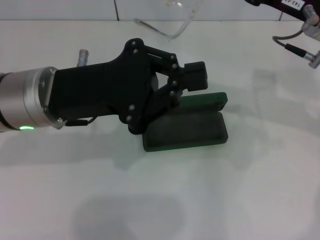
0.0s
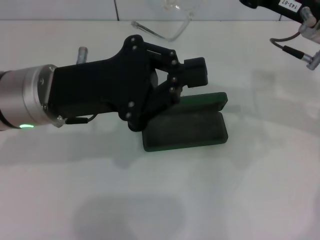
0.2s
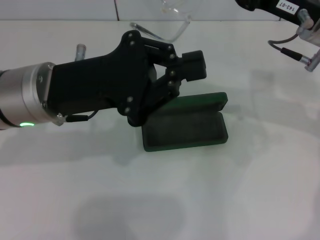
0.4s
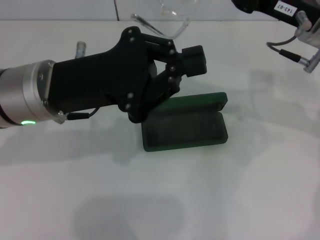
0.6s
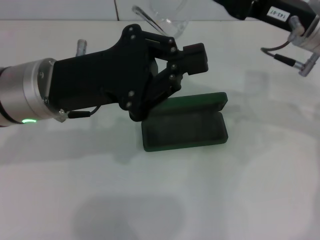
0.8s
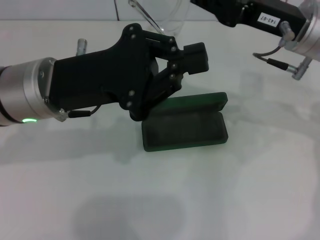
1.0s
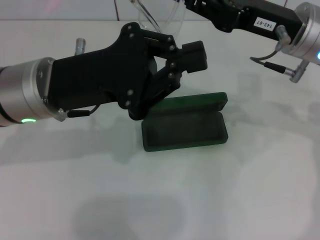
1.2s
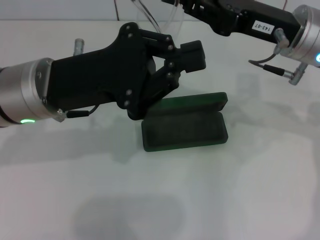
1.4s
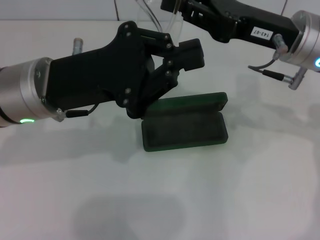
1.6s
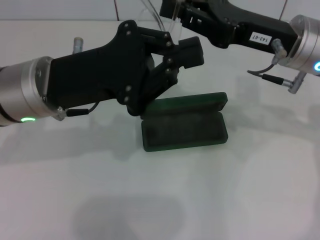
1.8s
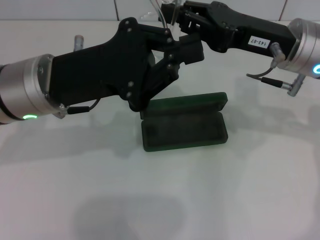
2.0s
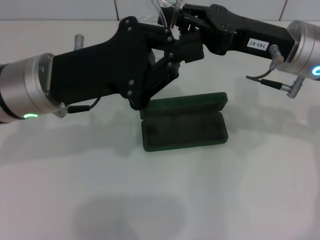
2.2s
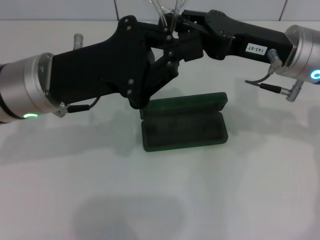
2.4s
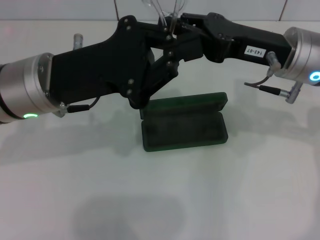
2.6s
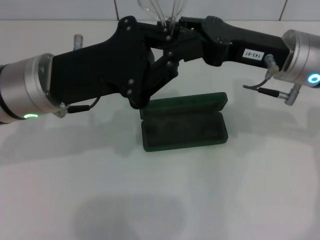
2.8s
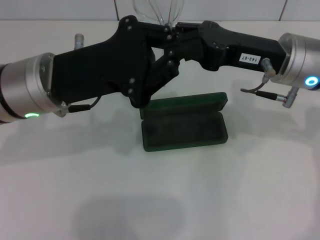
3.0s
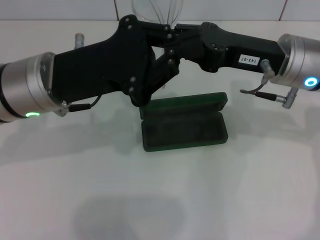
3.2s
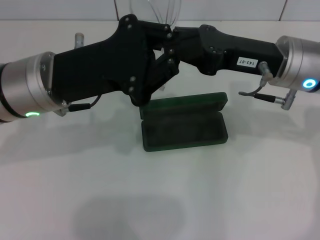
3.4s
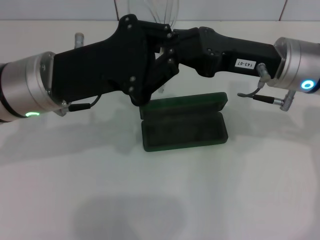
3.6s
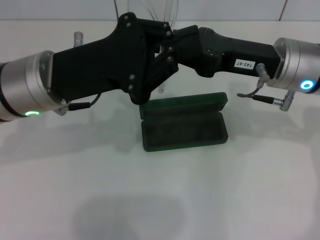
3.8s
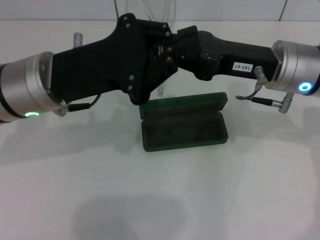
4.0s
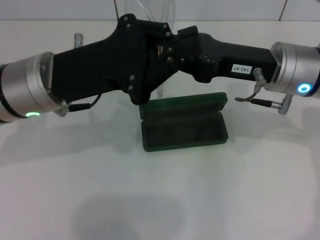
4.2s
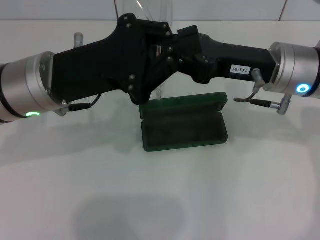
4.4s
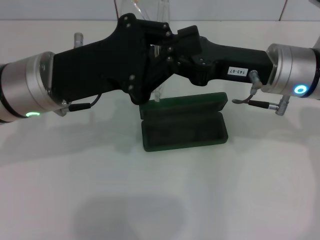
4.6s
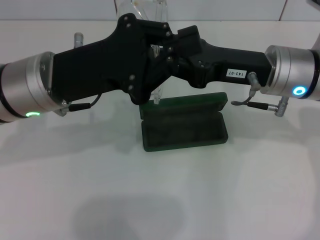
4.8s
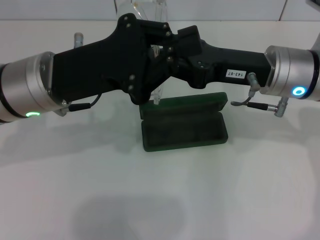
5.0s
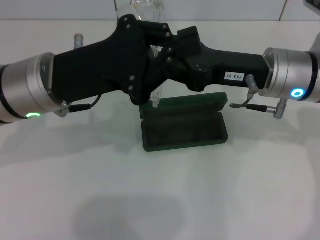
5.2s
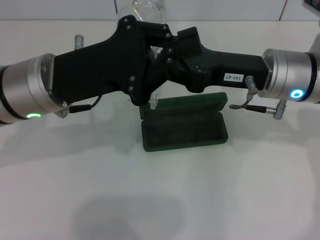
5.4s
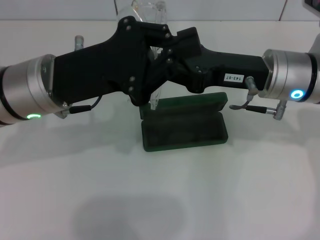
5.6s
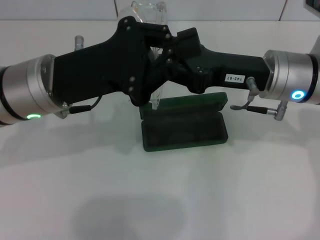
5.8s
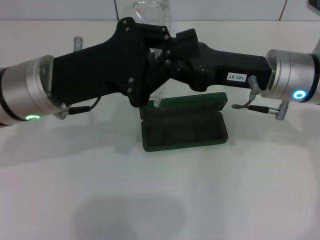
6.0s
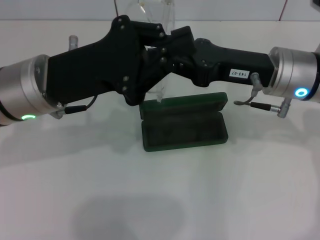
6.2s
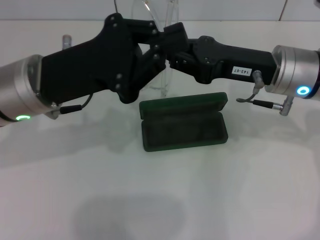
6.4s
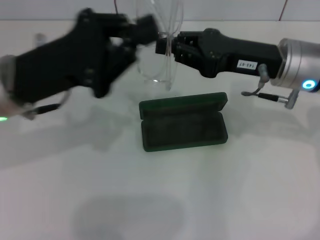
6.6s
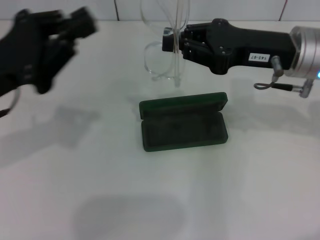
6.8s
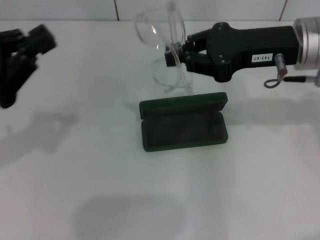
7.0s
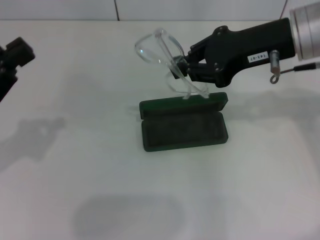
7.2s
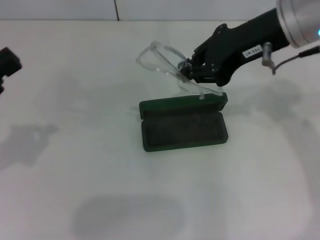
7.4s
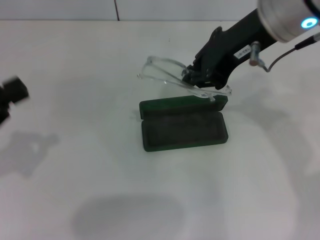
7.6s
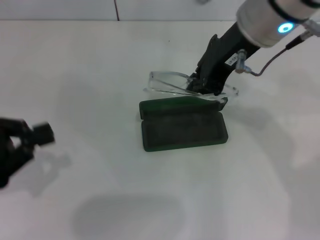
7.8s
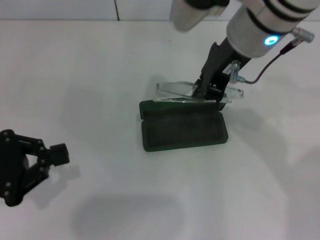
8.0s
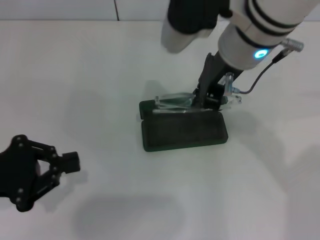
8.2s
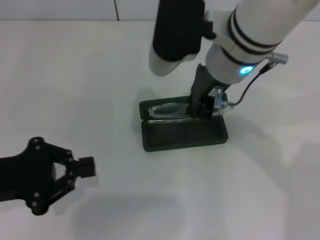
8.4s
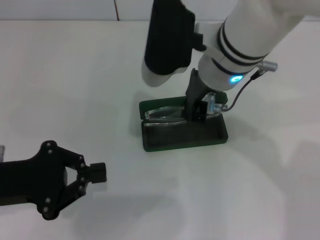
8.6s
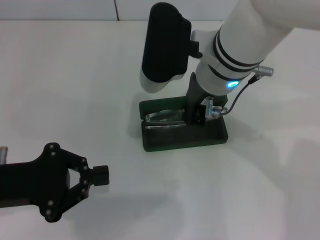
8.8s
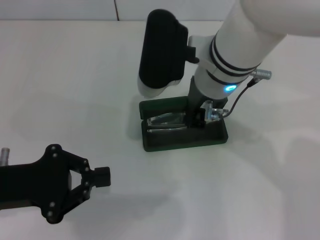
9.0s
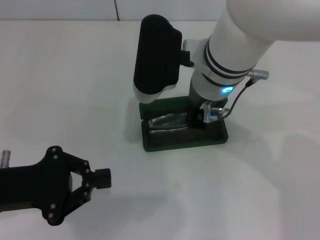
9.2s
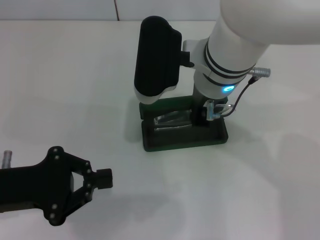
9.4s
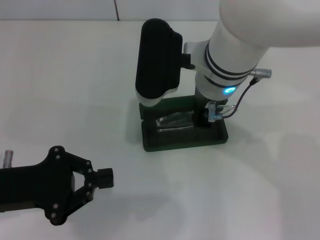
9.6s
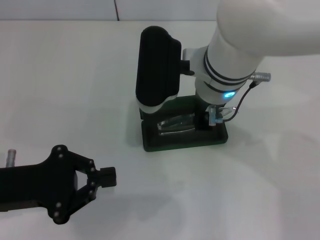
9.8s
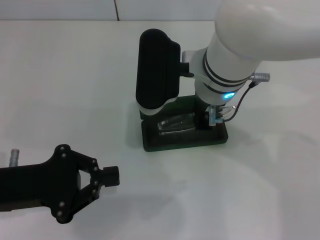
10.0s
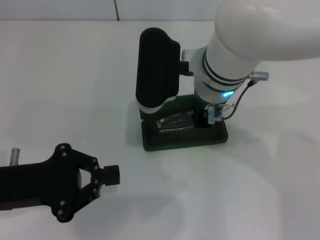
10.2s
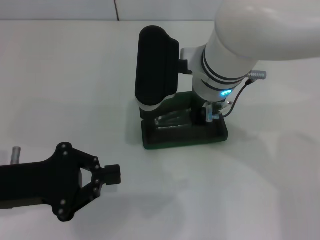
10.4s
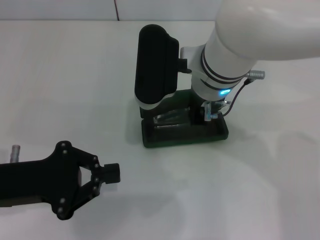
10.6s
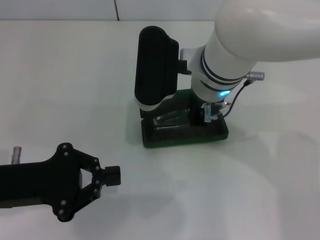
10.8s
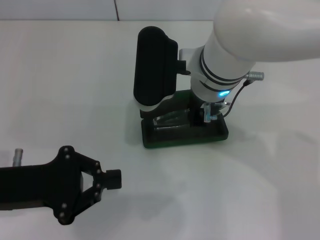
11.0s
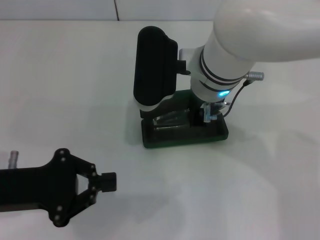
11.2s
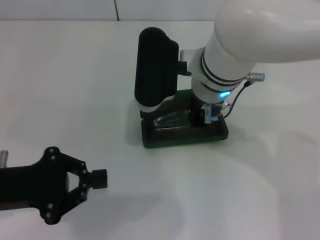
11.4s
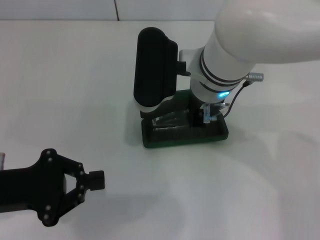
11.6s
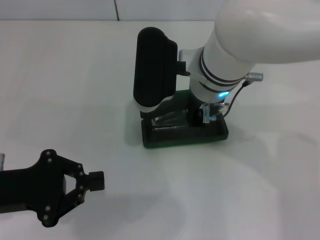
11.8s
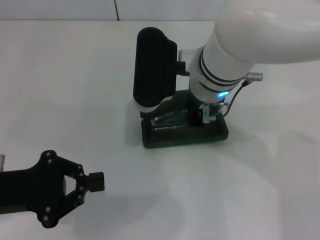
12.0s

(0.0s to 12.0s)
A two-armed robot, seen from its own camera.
Step, 0.0s - 4.0s: Fold the frame with your left hand.
1.6s - 3.0s: The grippers move only a little.
3.0s - 4.4s: The two grippers keep their place.
4.4s - 6.0s: Neither gripper changes place.
6.0s - 7.6s: The left gripper heads to the left and backward, covering about 20 cm, while the right gripper is displaced upward by approximately 10 cm.
7.6s - 9.0s: The right gripper shifts approximately 10 cm to the left and downward; the left gripper travels to the right by approximately 5 cm.
9.0s - 12.0s: There are only small adjustments of the grippers.

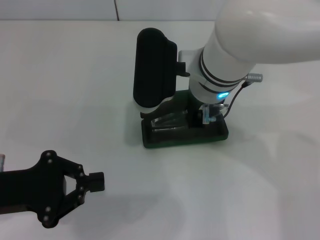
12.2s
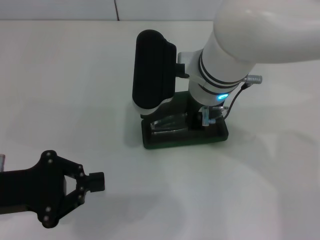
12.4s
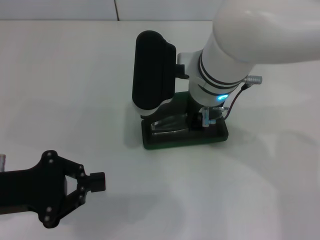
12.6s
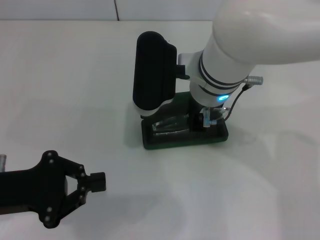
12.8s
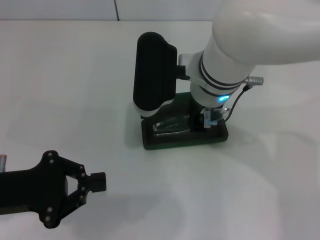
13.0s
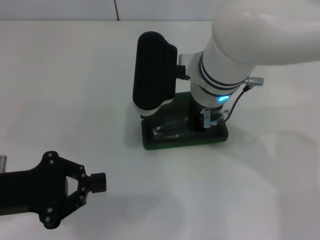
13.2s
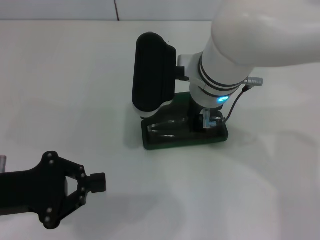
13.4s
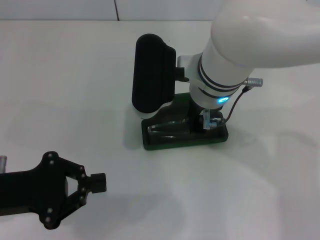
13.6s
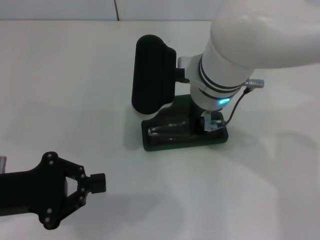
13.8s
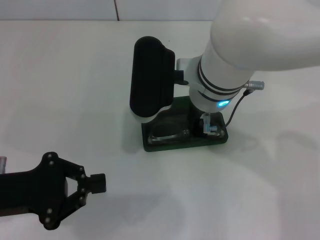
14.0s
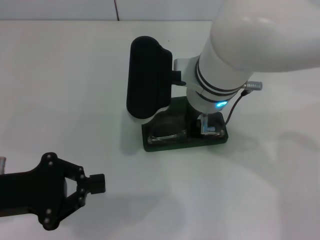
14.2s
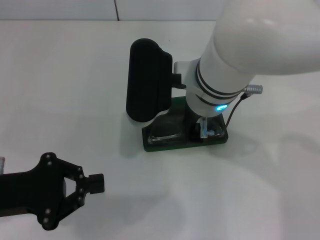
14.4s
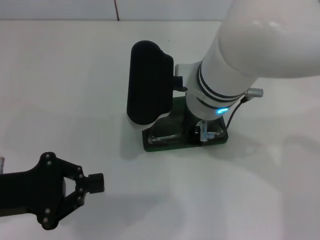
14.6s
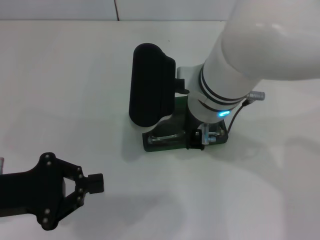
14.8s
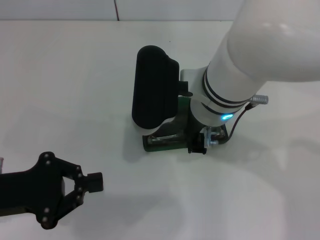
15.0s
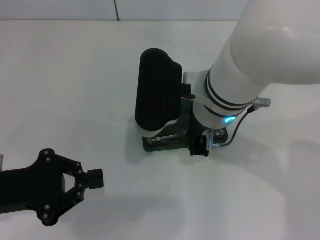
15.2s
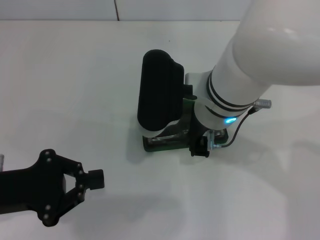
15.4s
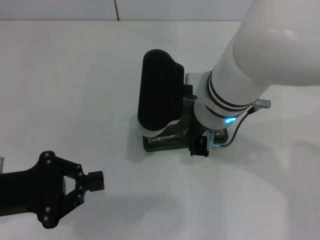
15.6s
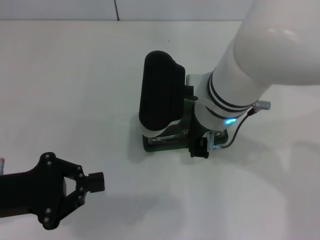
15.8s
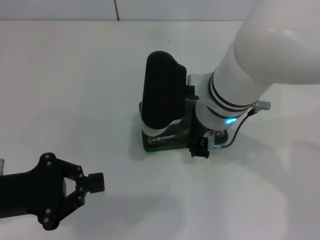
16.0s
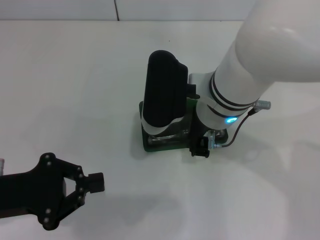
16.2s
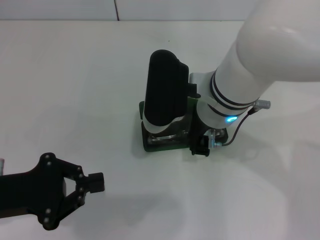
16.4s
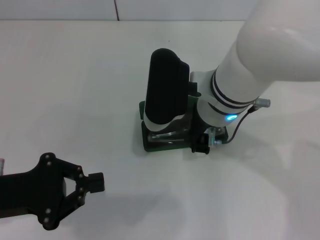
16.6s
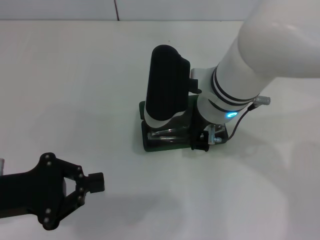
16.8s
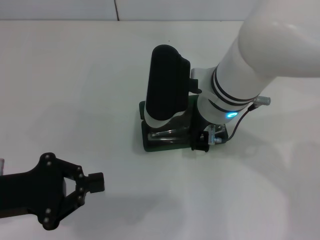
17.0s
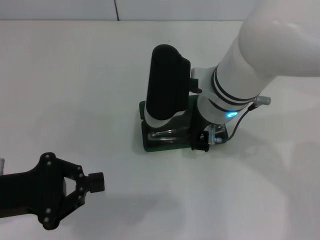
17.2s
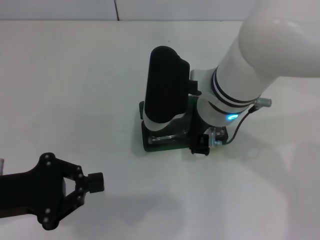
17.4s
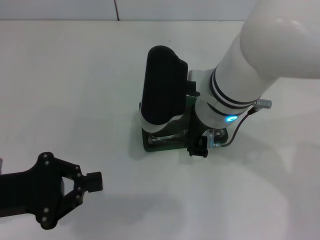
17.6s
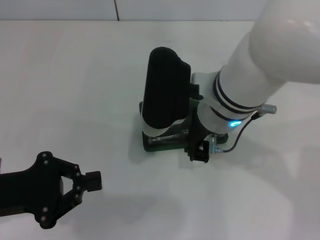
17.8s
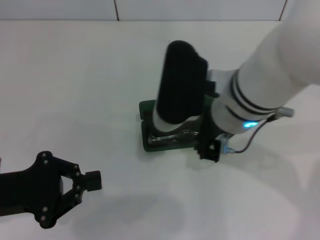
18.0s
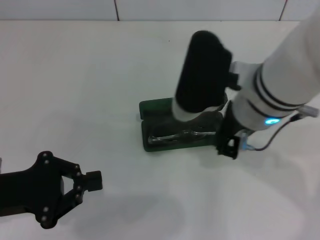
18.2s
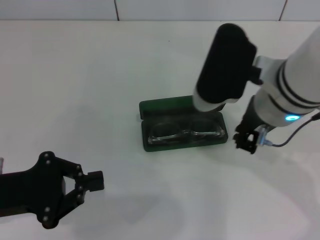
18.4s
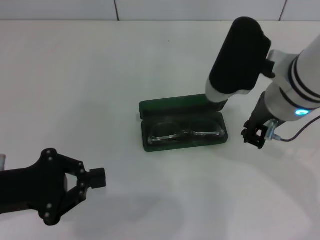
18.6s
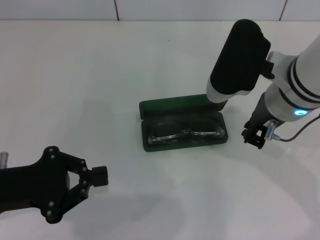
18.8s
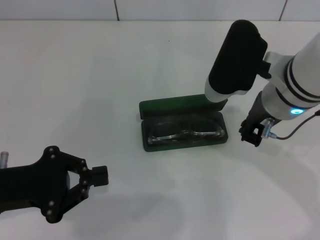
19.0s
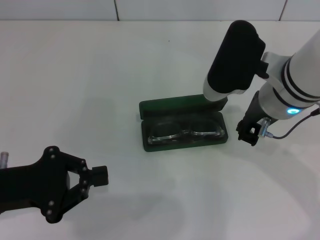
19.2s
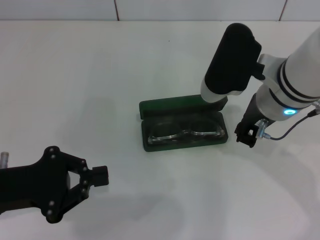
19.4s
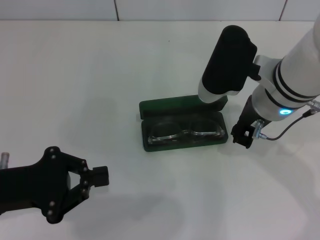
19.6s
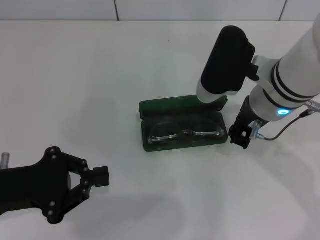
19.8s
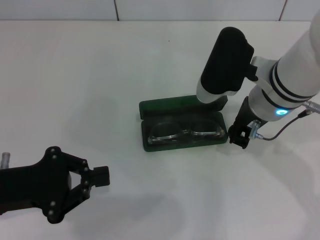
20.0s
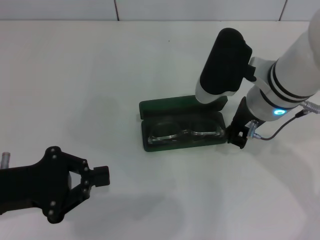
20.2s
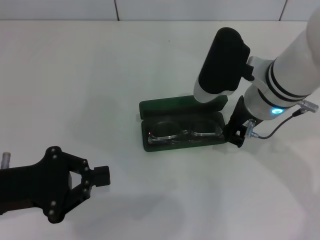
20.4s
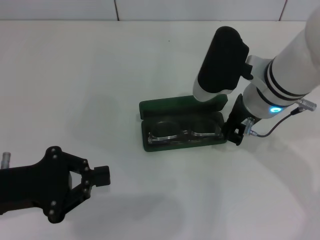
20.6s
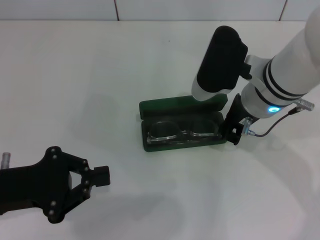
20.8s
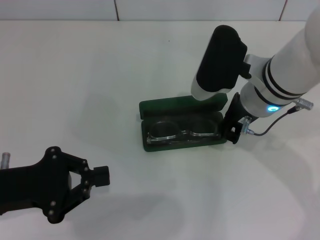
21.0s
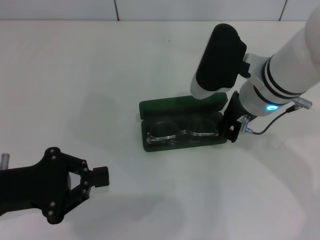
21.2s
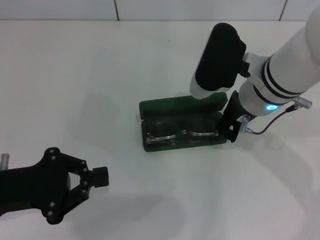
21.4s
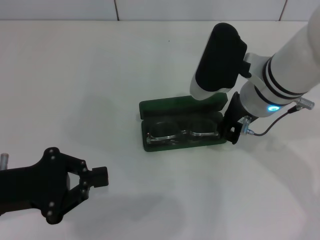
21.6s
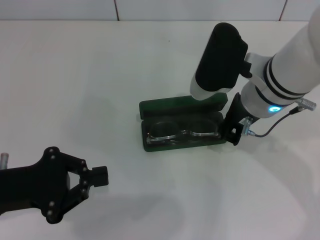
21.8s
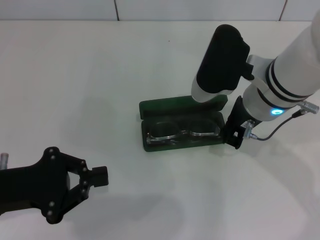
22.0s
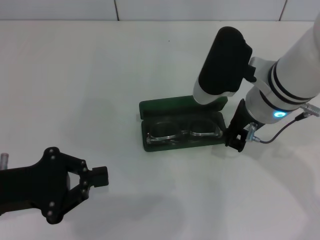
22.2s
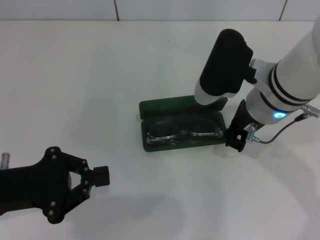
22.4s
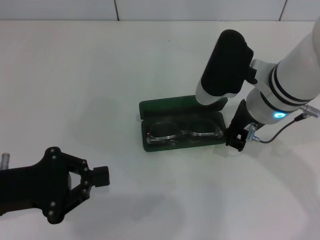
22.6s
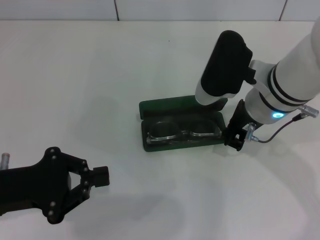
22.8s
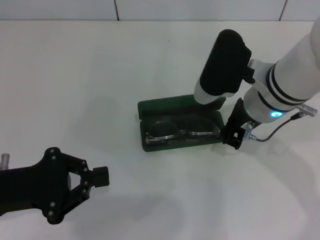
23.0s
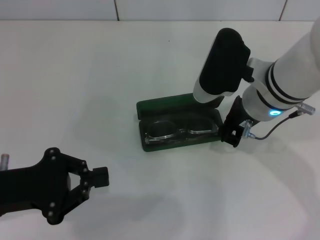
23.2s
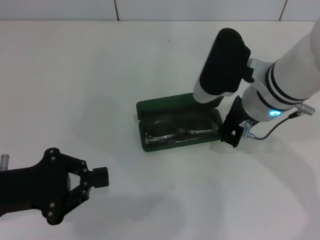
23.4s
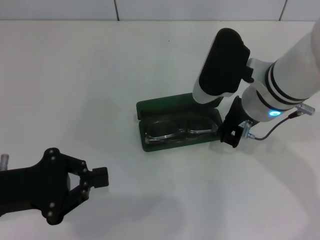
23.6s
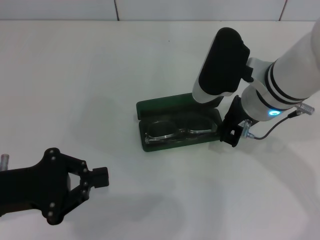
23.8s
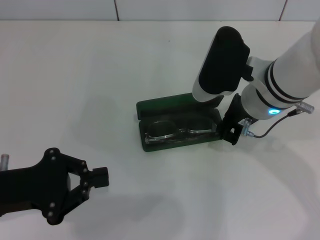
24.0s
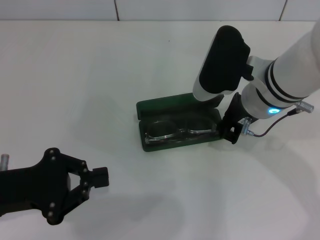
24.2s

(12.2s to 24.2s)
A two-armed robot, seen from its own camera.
12.2s - 13.8s: Neither gripper changes place.
13.8s - 16.6s: The grippers make only small movements.
16.6s - 18.2s: The right gripper shifts by roughly 5 cm.
18.2s - 19.8s: The right gripper shifts by about 5 cm.
19.8s - 22.6s: The grippers stay close to where they were, moving slightly.
22.6s - 24.2s: The two grippers keep their place.
